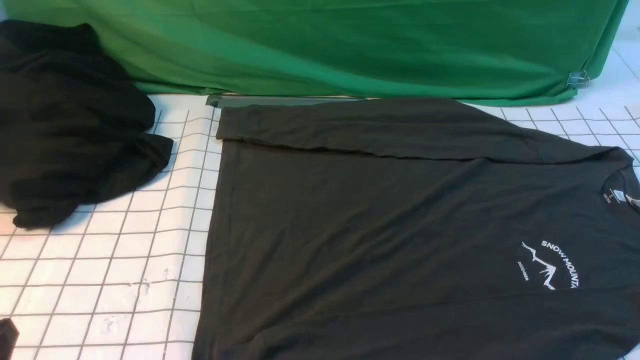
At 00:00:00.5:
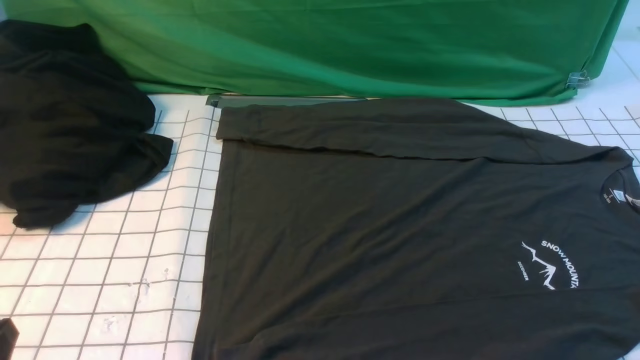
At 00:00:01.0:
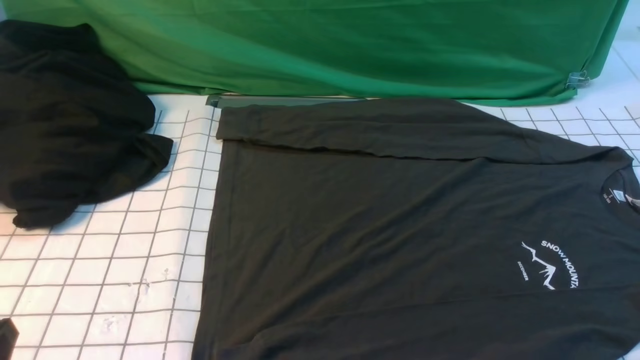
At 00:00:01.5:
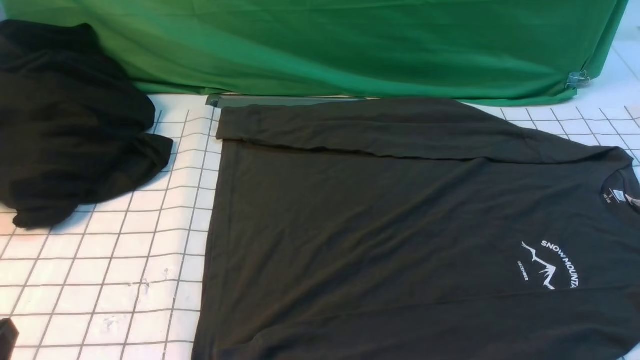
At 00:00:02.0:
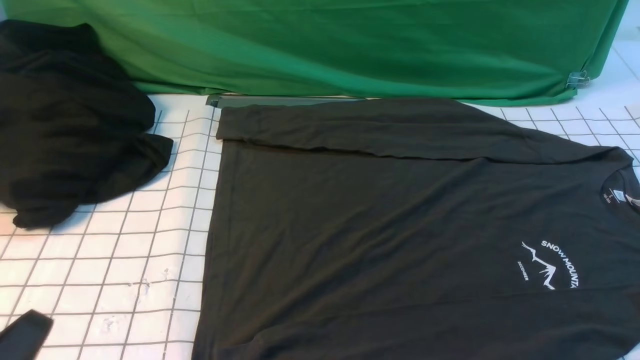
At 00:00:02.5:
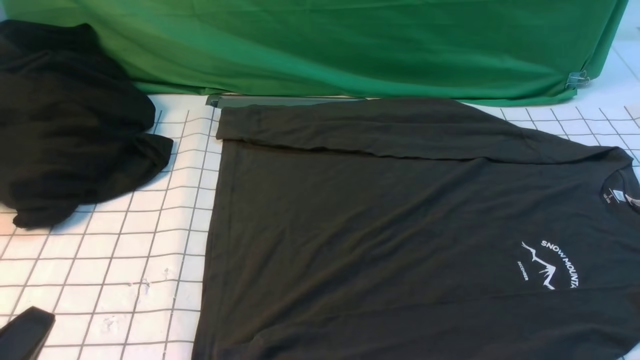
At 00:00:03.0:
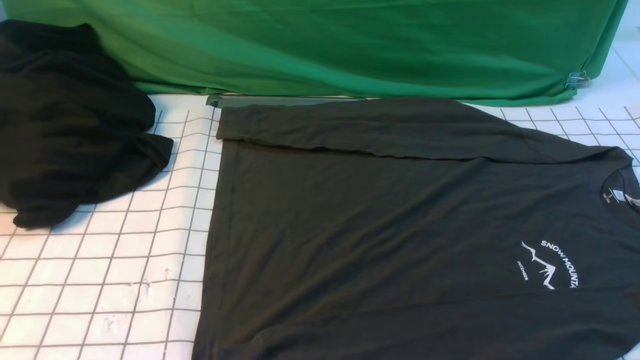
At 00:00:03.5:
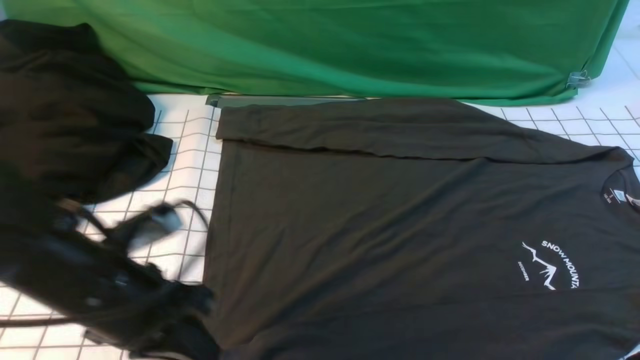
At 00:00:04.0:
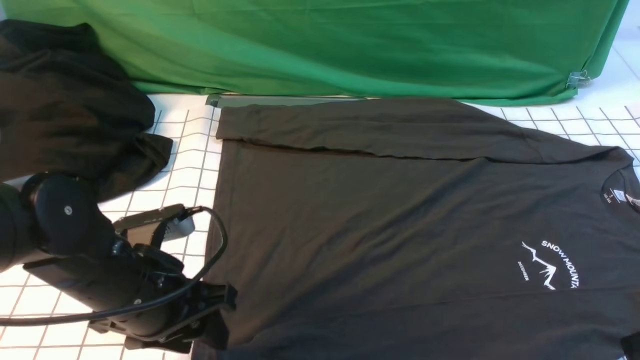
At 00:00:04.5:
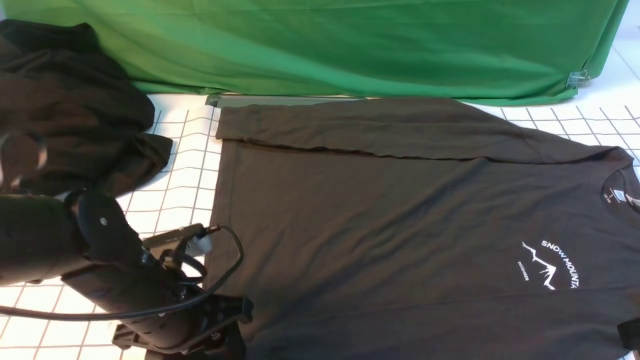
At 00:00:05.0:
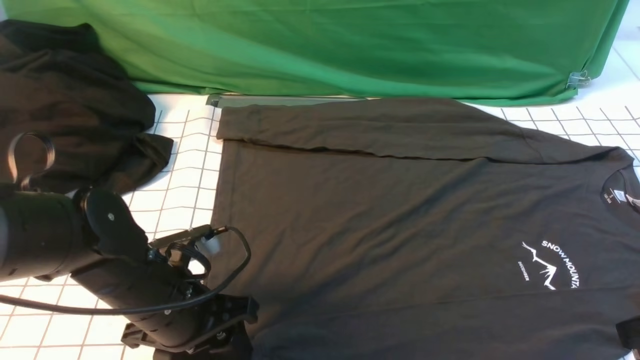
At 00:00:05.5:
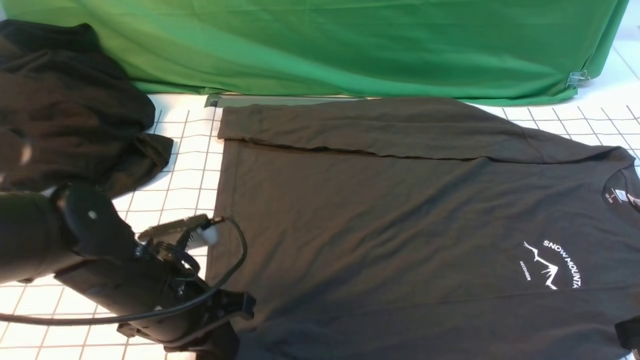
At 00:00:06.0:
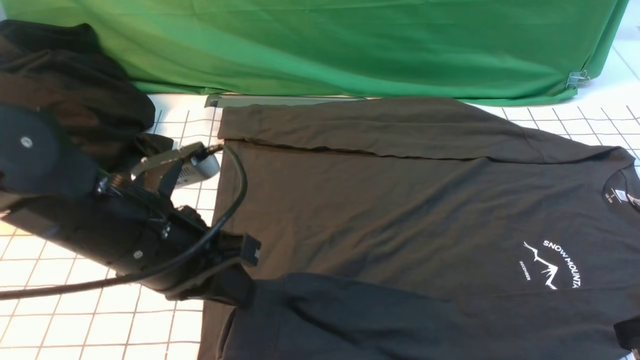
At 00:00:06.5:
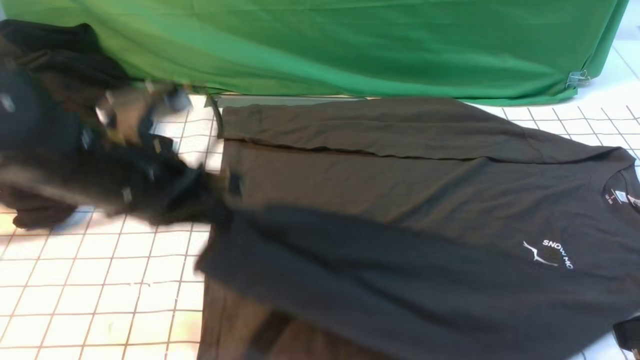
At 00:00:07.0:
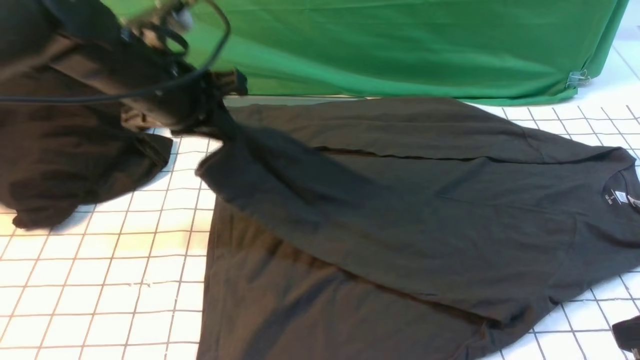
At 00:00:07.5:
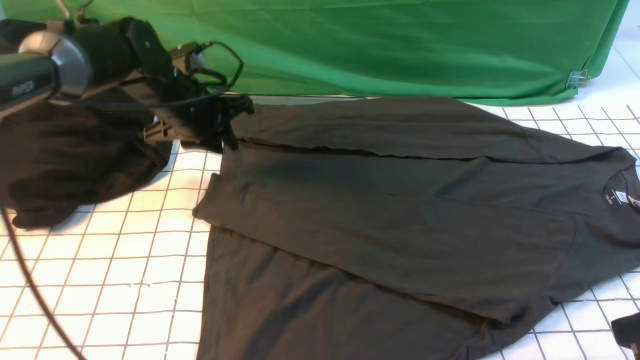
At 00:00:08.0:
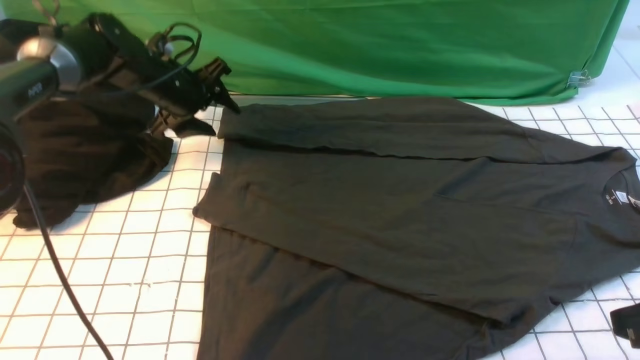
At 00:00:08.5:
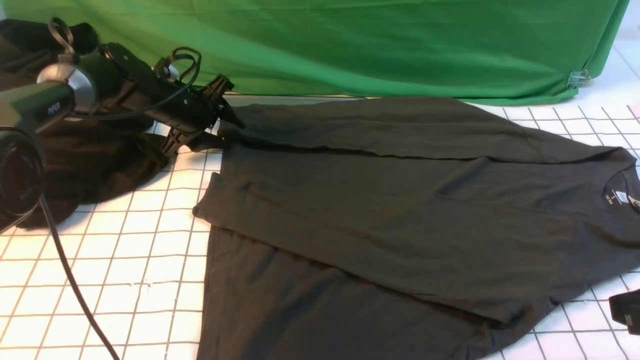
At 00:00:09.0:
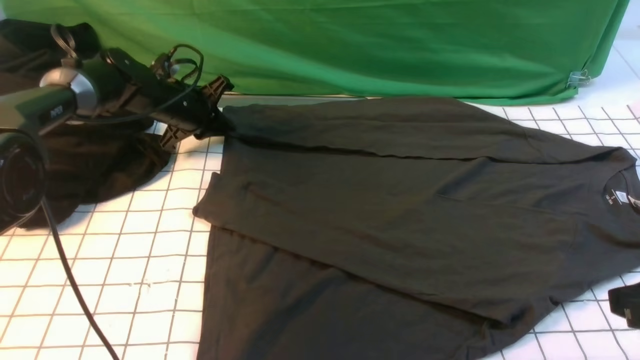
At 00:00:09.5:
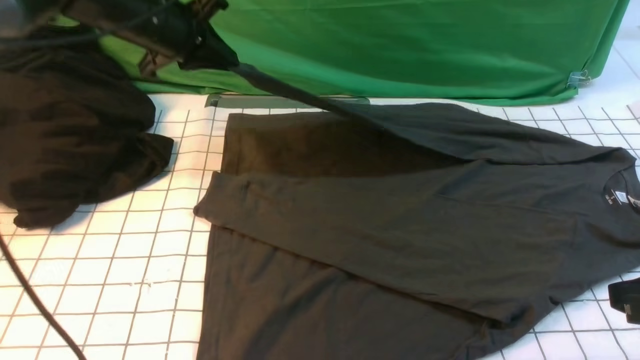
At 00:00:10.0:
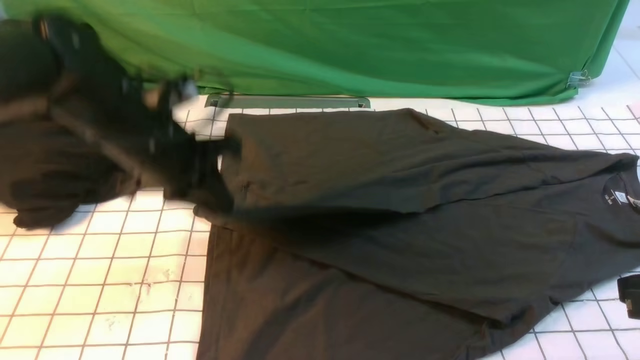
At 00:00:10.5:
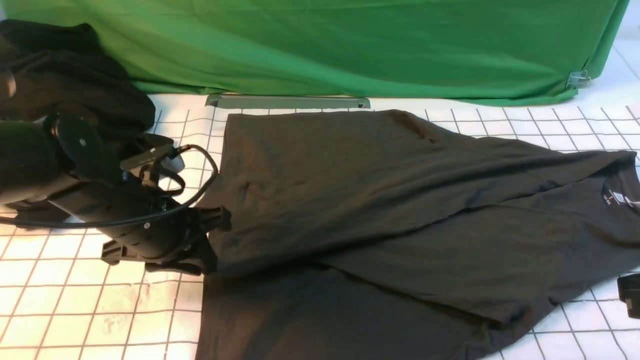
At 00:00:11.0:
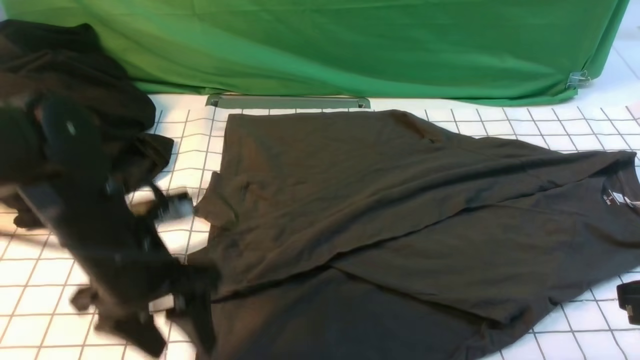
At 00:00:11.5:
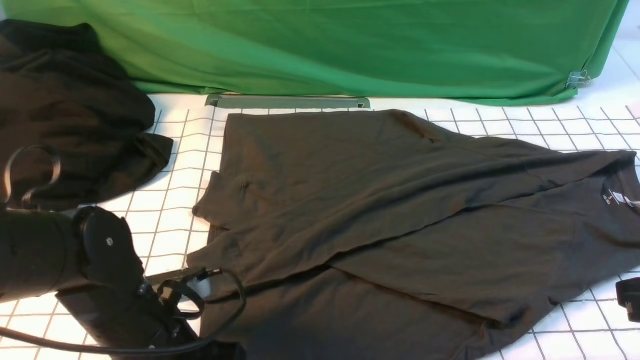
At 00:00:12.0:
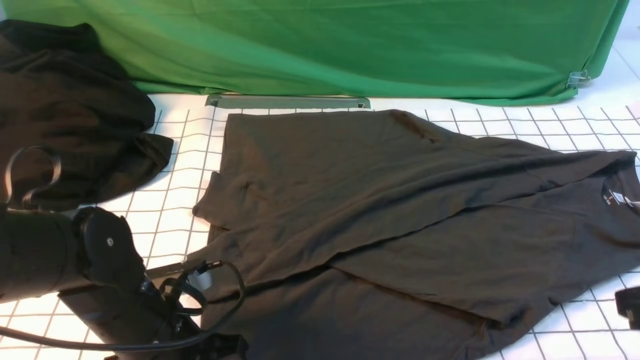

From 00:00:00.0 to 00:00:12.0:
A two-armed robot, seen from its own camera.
Step, from 00:00:00.0 to 00:00:05.0: use the left arm to clamp the cuff closest to it.
Step, from 00:00:05.5 to 00:00:07.0: use the left arm to drag and place the cuff at the centered position on the left edge of the fabric.
Step, from 00:00:08.0 to 00:00:08.5: use the left arm to clamp the cuff farthest from it.
Step, from 00:00:09.0 to 00:00:10.5: use the left arm to drag and drop the cuff onto the cuff closest to the left arm.
From 00:00:02.0 to 00:00:04.0: The right gripper is displaced forward and upward by roughly 10 cm, while the left gripper travels forward and to the right by some 20 cm, and opens its fingers.
From 00:00:04.0 to 00:00:06.0: The left gripper travels upward by some 5 cm, and closes its fingers.
From 00:00:06.0 to 00:00:08.0: The left gripper travels forward by about 30 cm, and opens up.
From 00:00:08.0 to 00:00:10.0: The left gripper moves backward, some 15 cm, and closes.
From 00:00:10.0 to 00:00:12.0: The left gripper moves backward and downward, approximately 15 cm, and opens and closes again.

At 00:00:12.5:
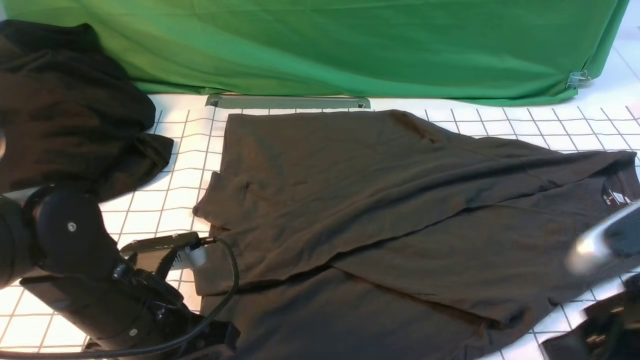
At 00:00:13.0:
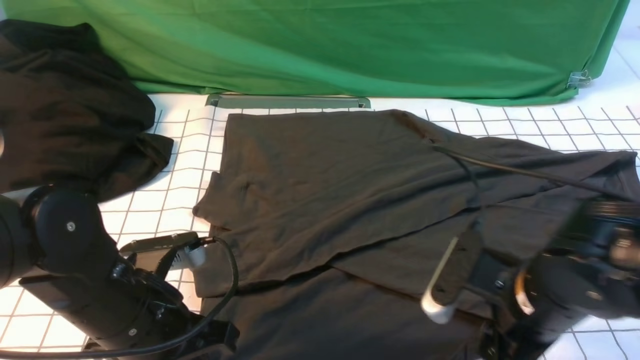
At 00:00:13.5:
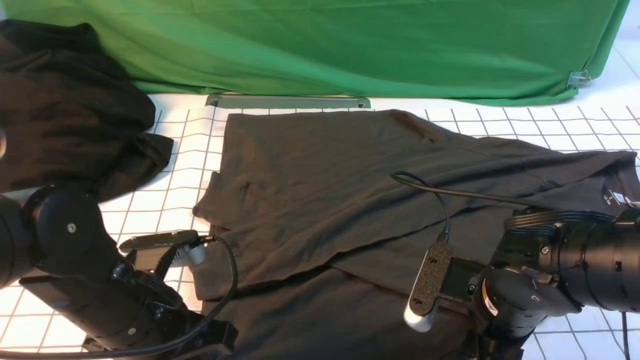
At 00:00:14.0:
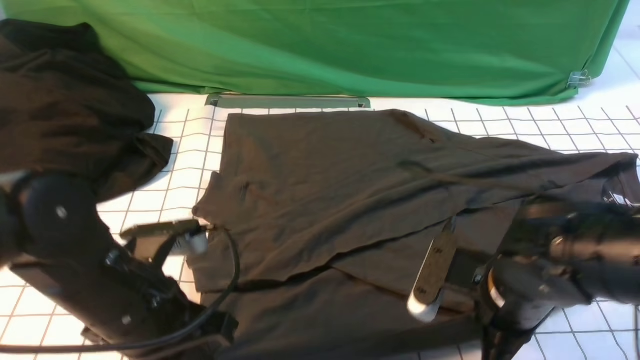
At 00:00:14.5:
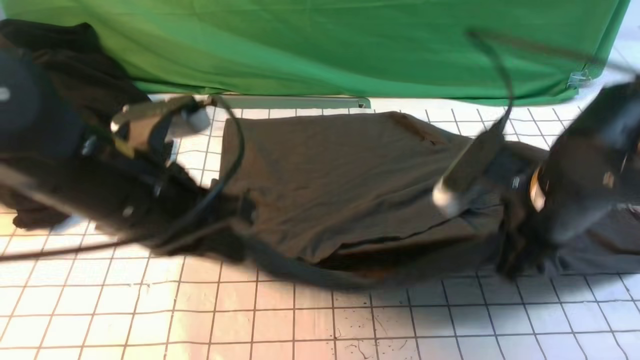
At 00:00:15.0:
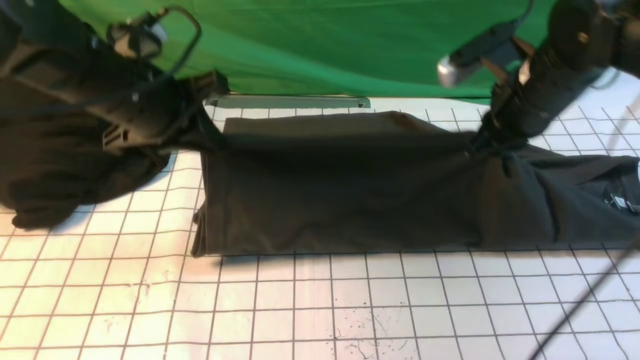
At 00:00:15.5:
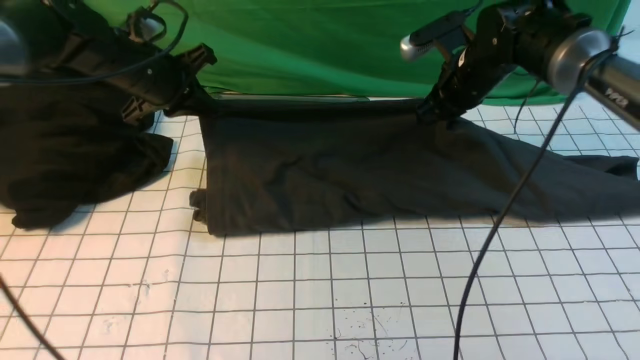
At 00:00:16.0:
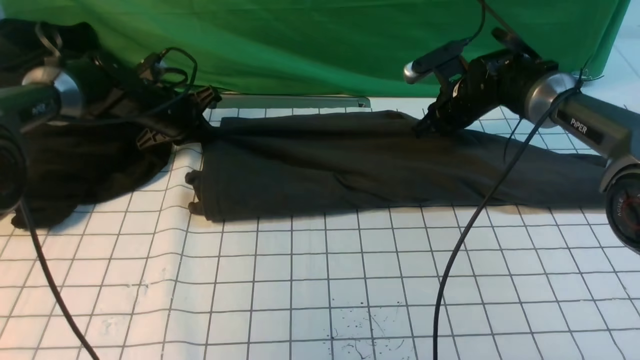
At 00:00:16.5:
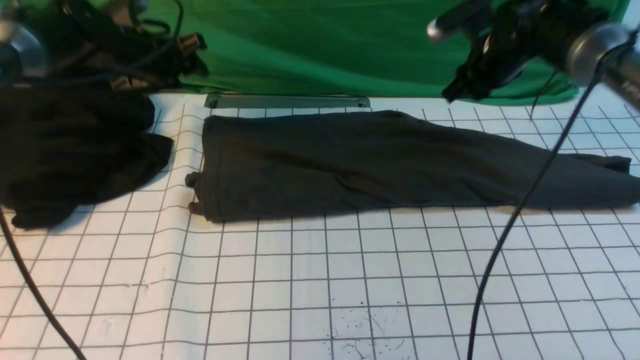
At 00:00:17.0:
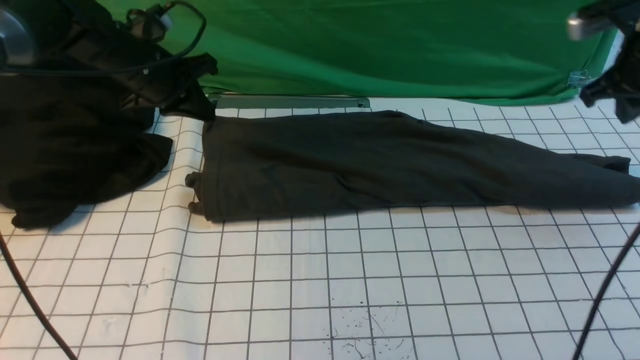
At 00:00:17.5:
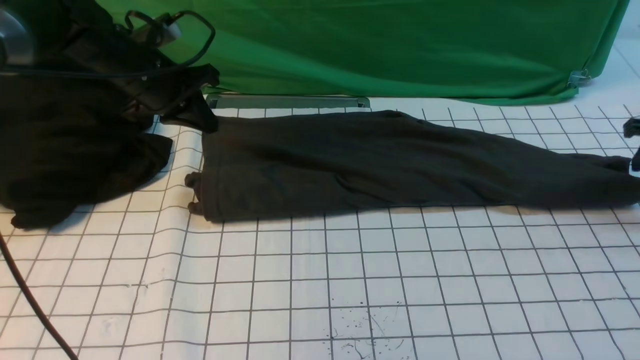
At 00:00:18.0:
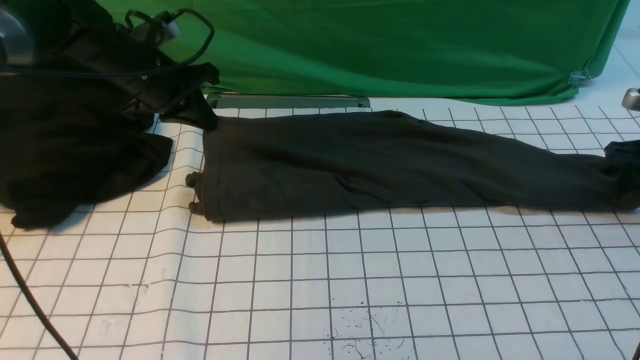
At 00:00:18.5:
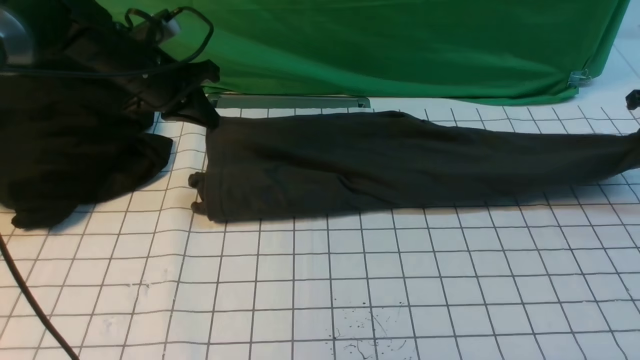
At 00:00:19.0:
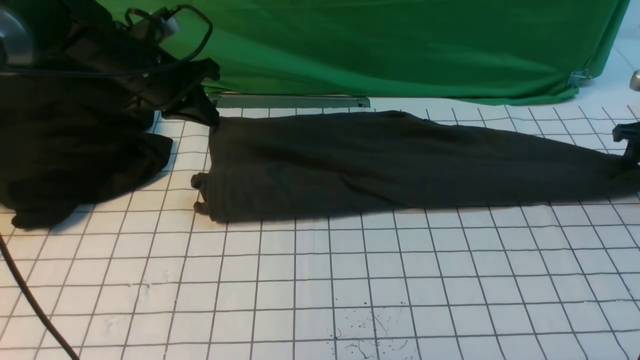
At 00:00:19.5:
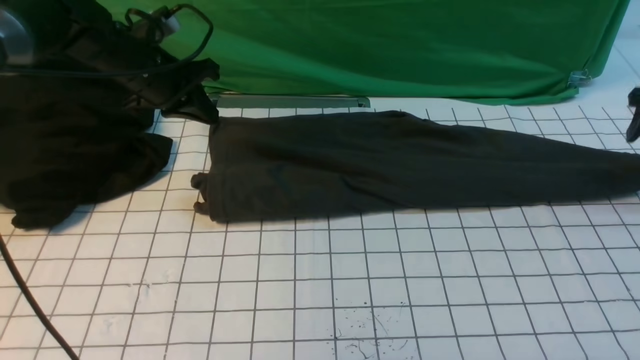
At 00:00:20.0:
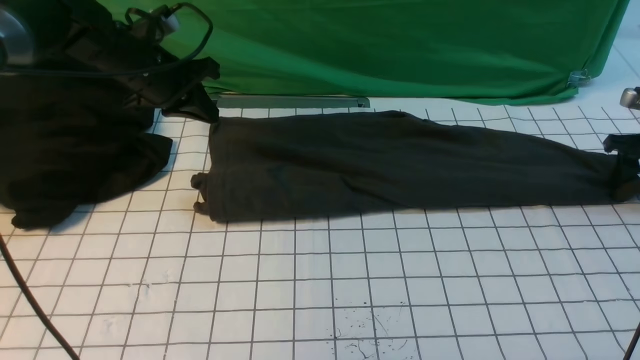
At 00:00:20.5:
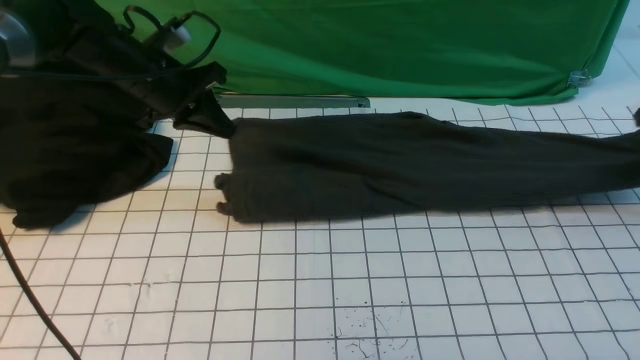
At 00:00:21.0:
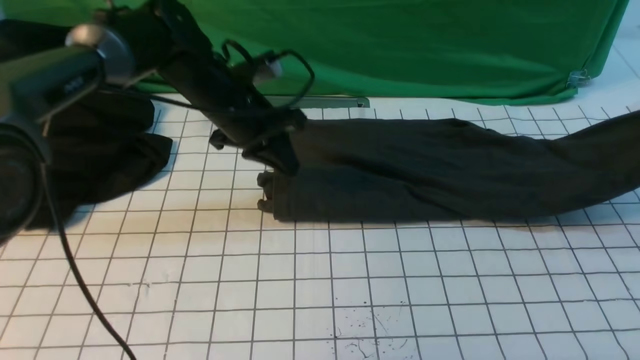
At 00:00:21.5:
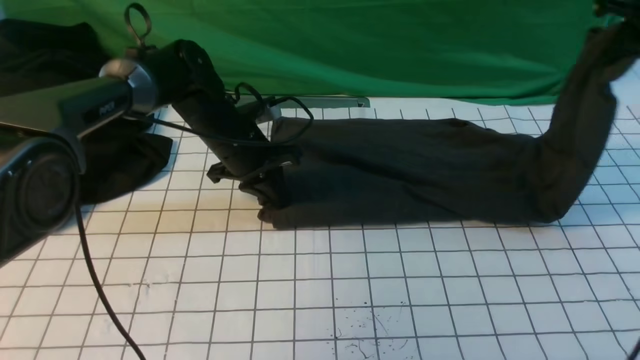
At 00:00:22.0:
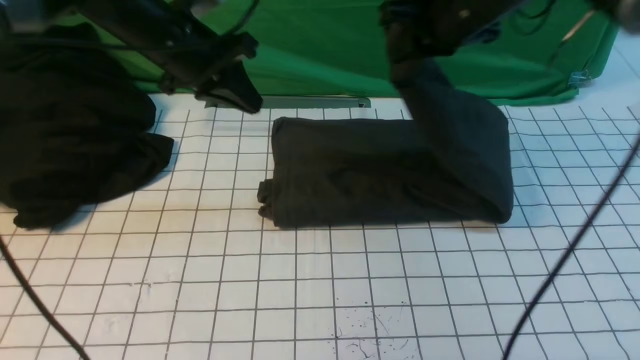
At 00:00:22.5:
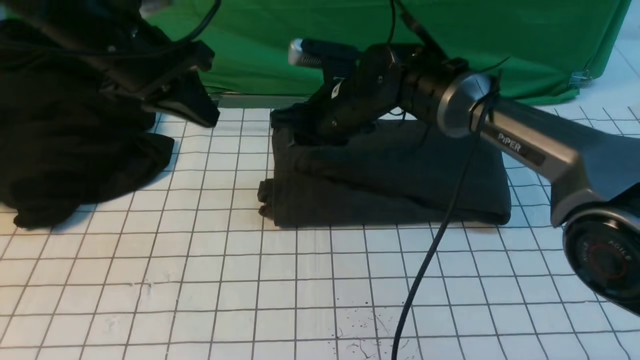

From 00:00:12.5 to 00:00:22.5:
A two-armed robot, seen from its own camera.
Step, from 00:00:14.0 to 00:00:16.0: use both arms to drag the lower edge of the fabric forward and fold it over the upper edge.
Step, from 00:00:16.5 to 00:00:20.0: use the right arm to clamp the right edge of the fabric.
Step, from 00:00:20.5 to 00:00:22.5: use the right arm to drag the right edge of the fabric to the left and folds it over the left edge.
From 00:00:12.5 to 00:00:14.5: The left gripper shifts approximately 10 cm upward. The right gripper shifts approximately 15 cm forward and to the left, and closes.
From 00:00:14.5 to 00:00:16.5: Both grippers travel together forward, roughly 25 cm. The left gripper opens up.
From 00:00:16.5 to 00:00:18.5: The left gripper closes its fingers. Meanwhile the right gripper shifts roughly 25 cm to the right.
From 00:00:18.5 to 00:00:20.5: The right gripper opens, then closes again.
From 00:00:20.5 to 00:00:22.5: The right gripper goes roughly 40 cm to the left, and opens up. Meanwhile the left gripper heads upward and backward, covering roughly 10 cm.
